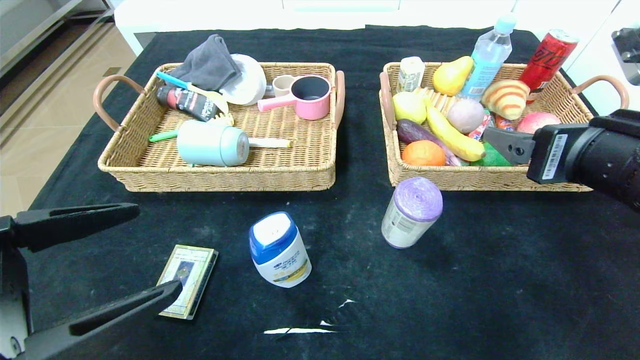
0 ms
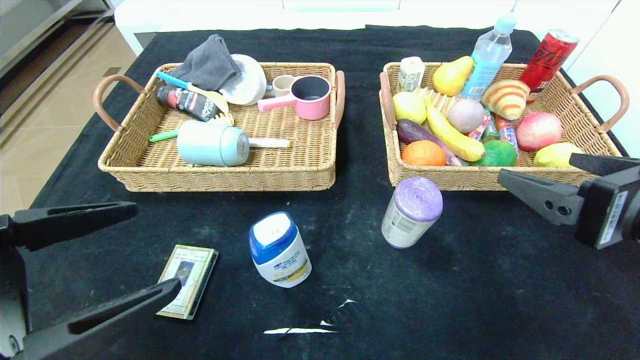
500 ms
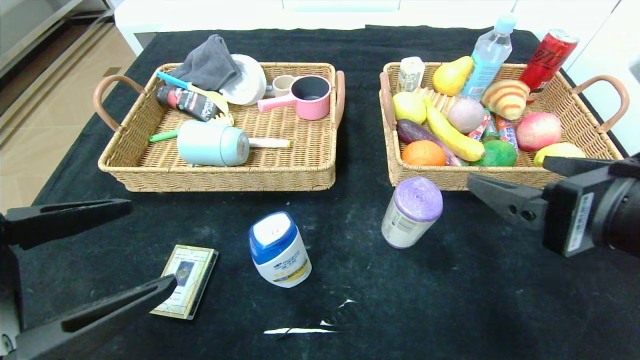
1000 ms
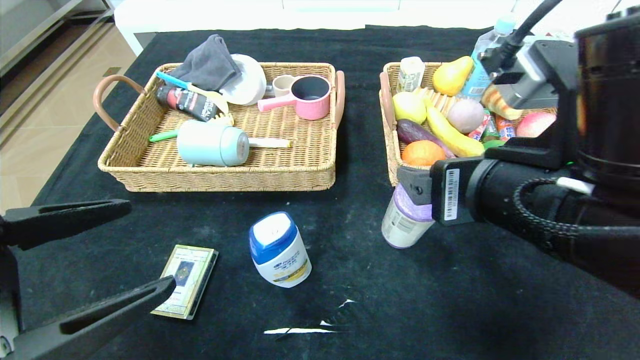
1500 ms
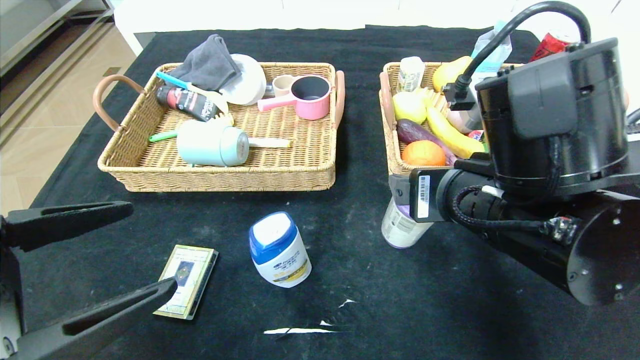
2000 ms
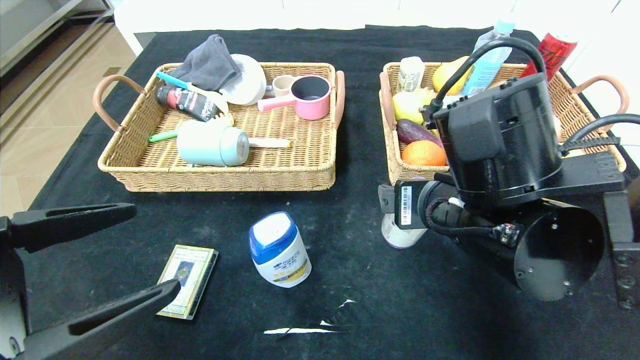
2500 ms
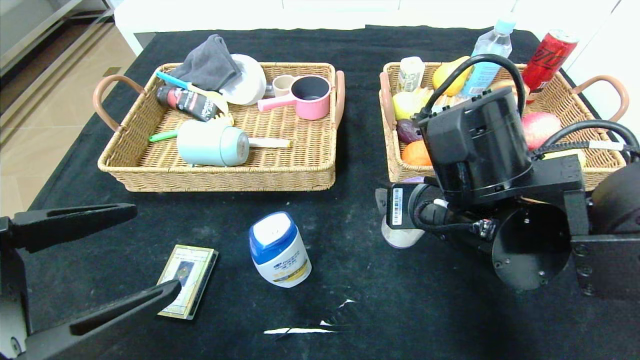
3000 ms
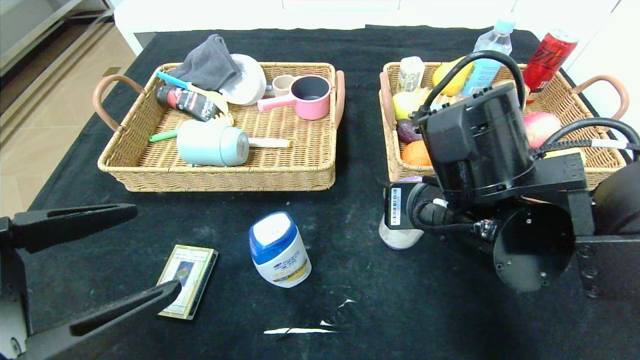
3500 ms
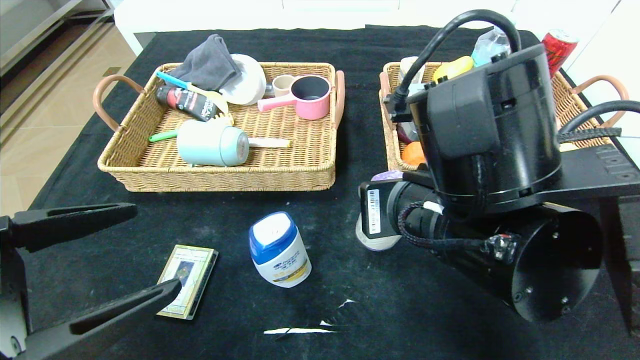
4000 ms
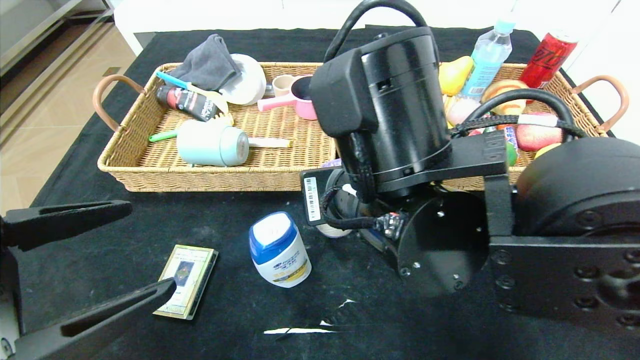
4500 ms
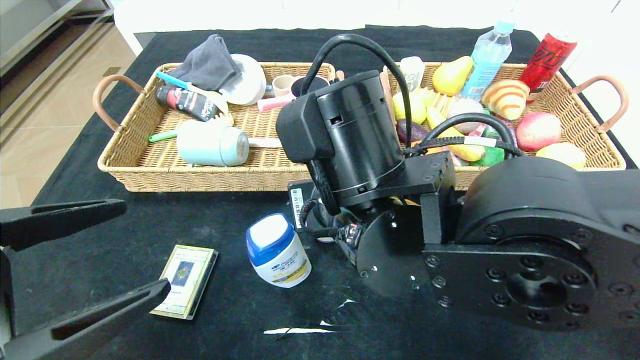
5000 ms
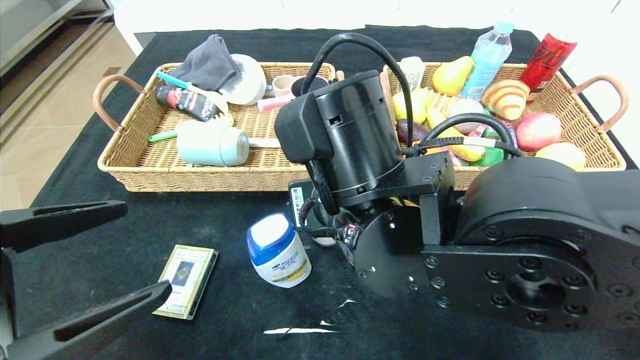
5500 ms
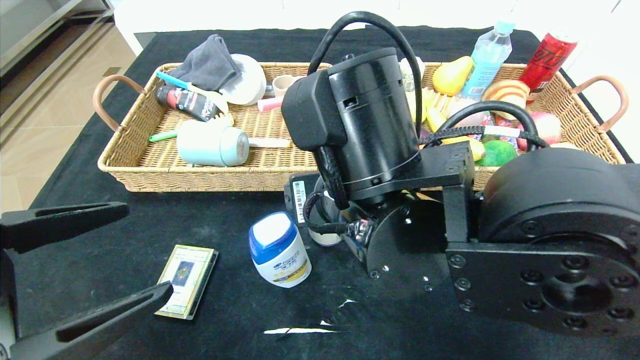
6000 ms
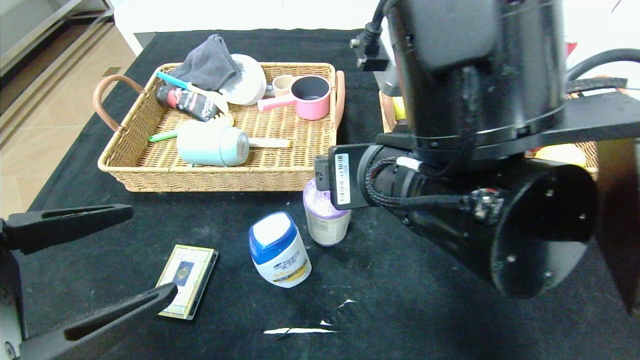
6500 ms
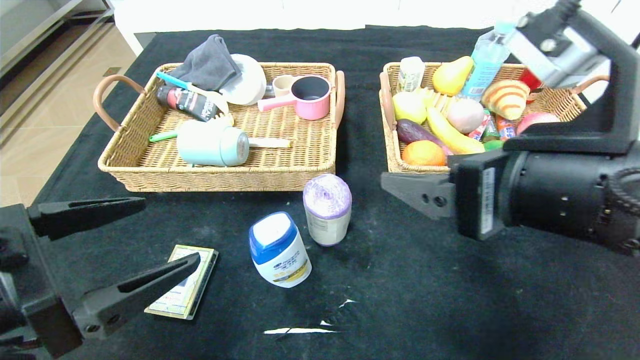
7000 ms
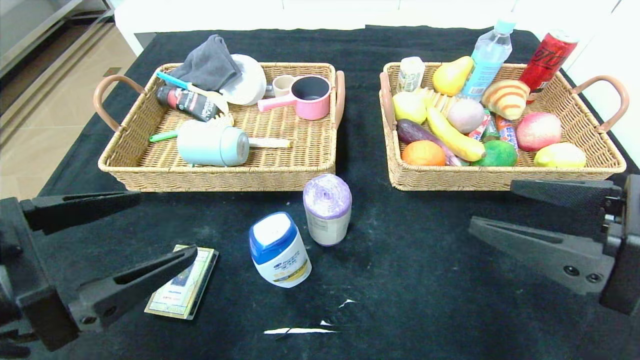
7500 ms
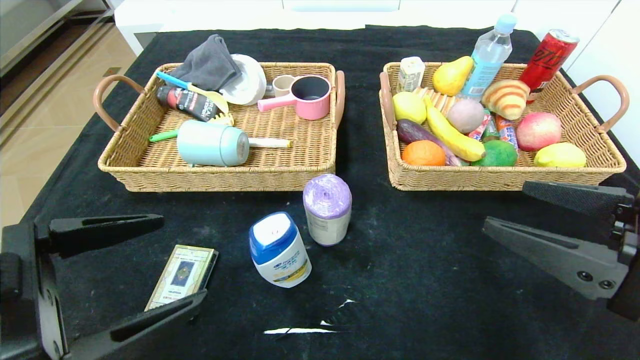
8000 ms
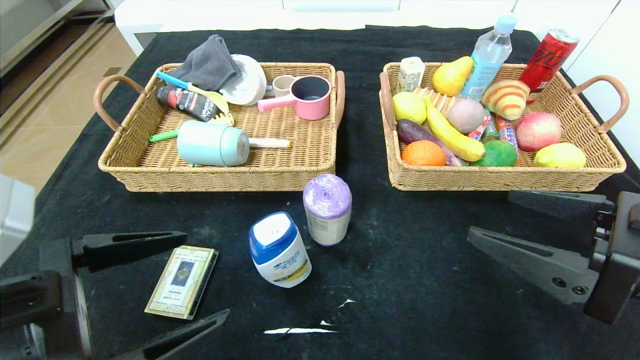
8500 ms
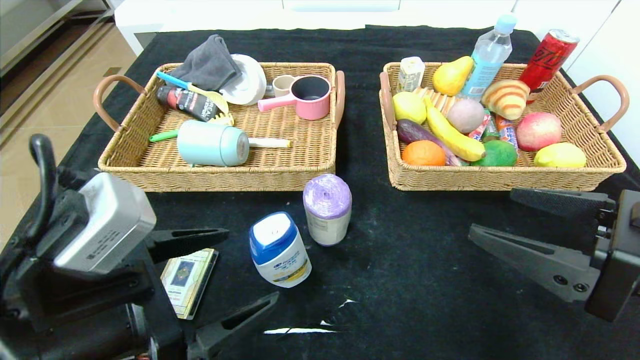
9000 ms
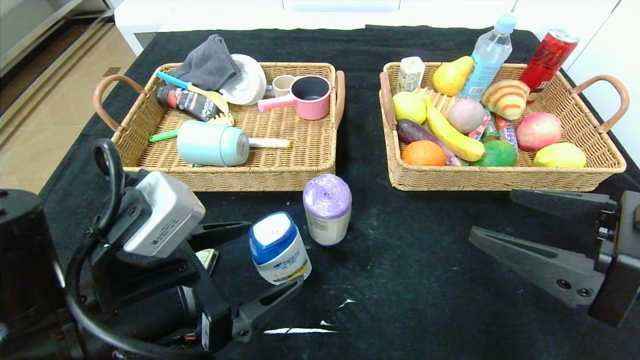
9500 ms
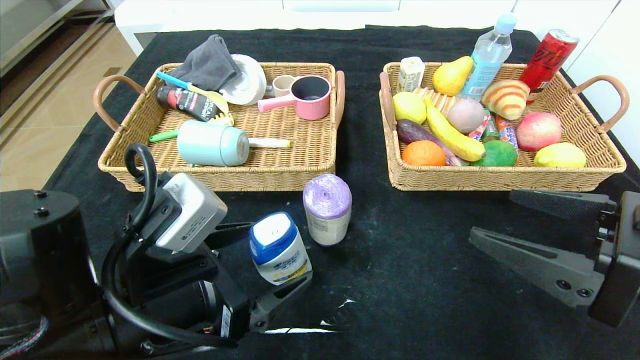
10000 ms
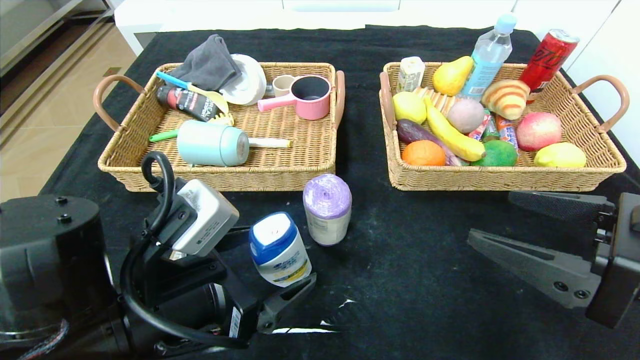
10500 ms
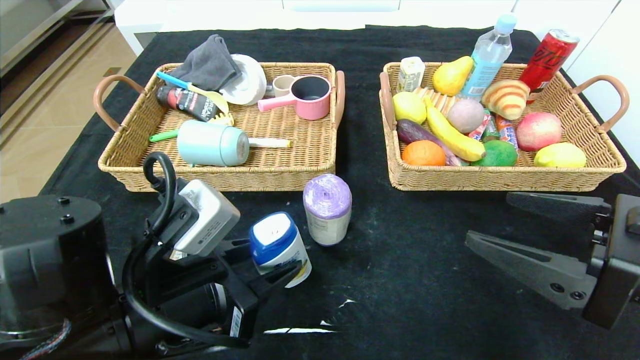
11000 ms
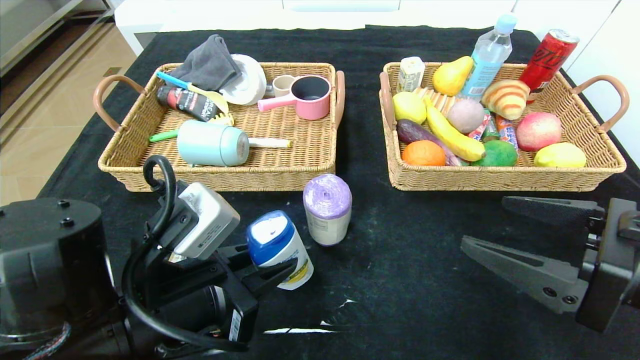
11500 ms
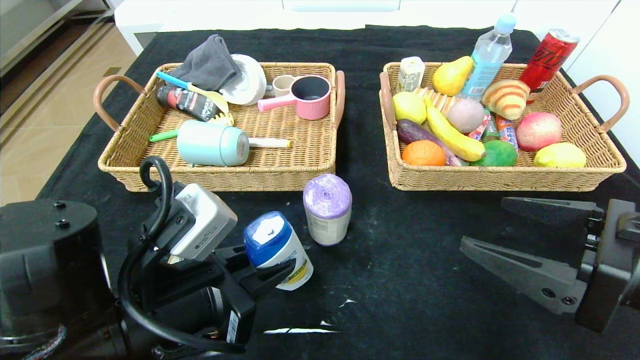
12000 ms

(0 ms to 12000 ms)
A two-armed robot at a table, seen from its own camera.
Step, 0 ms - 6500 ms: Place the purple garbage bag in the center of the table.
0 ms - 2000 ms: The right gripper moves to the left, approximately 10 cm.
2000 ms - 4000 ms: The right gripper closes.
4000 ms - 6000 ms: The right gripper heads to the left, covering some 5 cm, and opens up.
6000 ms - 8000 ms: The right gripper goes about 25 cm to the right.
8000 ms - 10000 ms: The left gripper shifts some 10 cm to the right and forward.
10000 ms - 12000 ms: The left gripper closes.

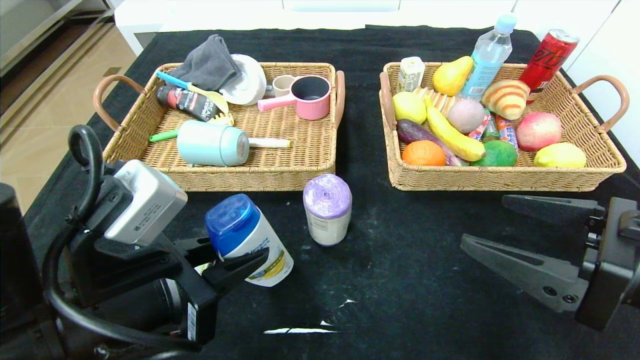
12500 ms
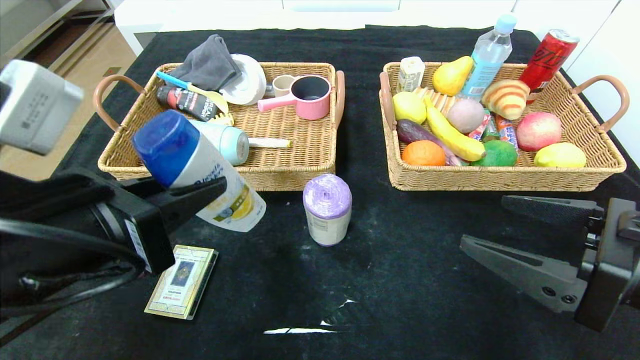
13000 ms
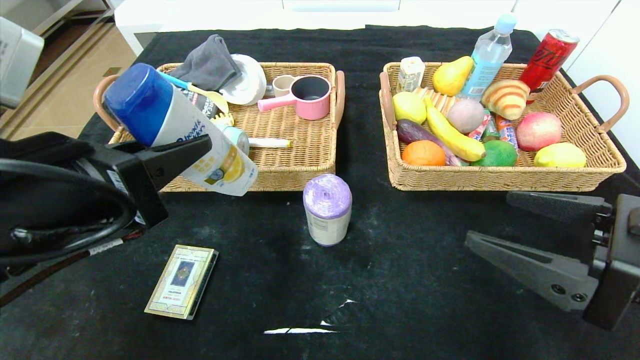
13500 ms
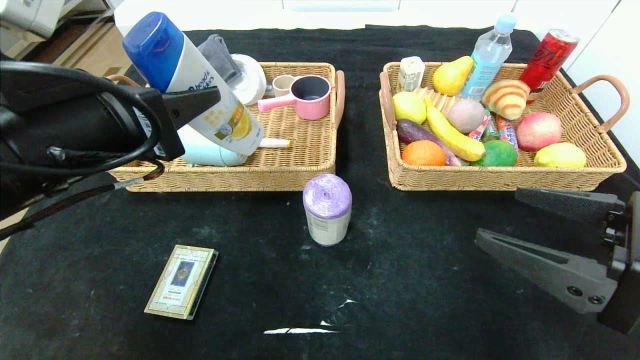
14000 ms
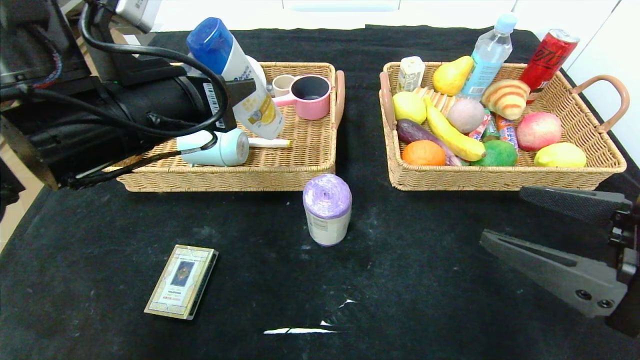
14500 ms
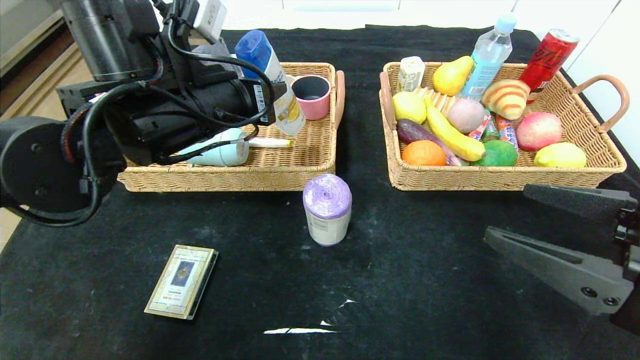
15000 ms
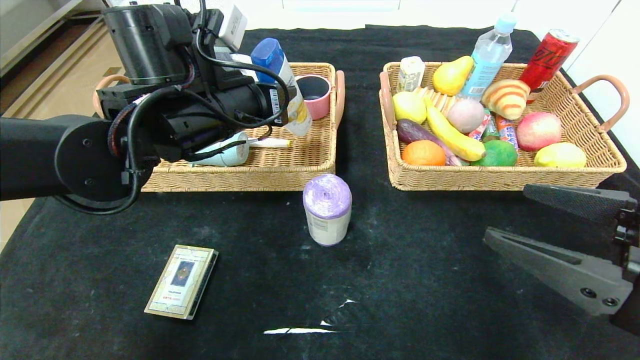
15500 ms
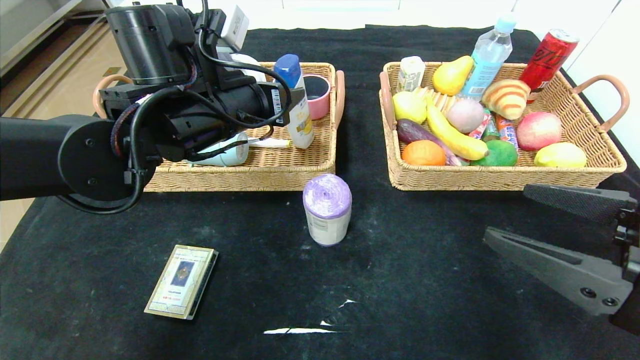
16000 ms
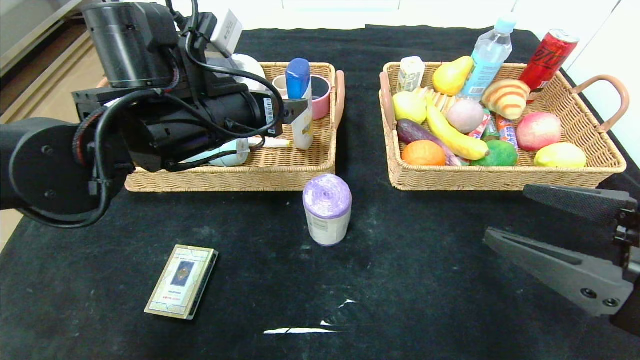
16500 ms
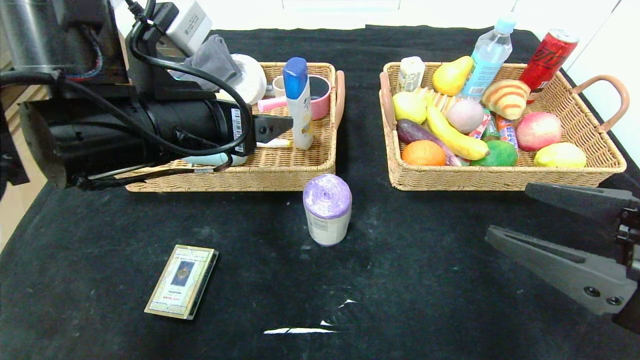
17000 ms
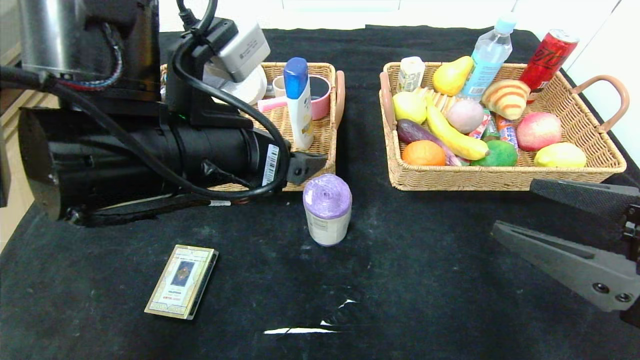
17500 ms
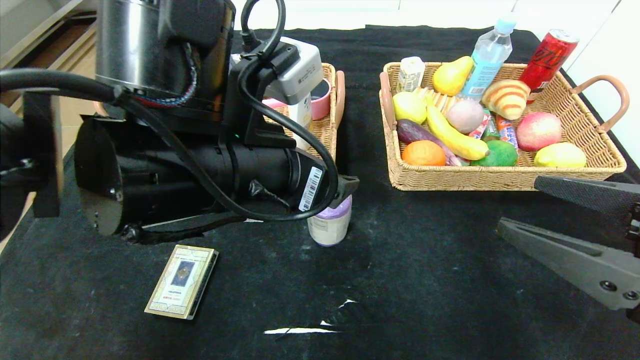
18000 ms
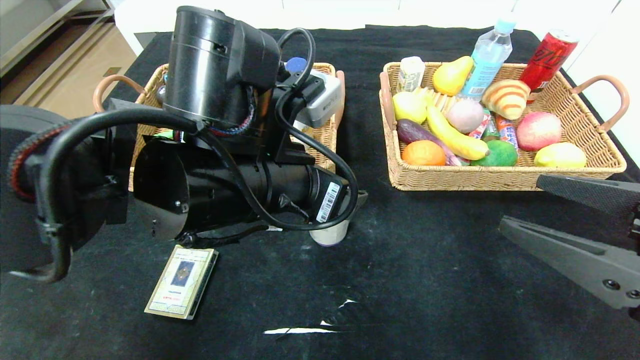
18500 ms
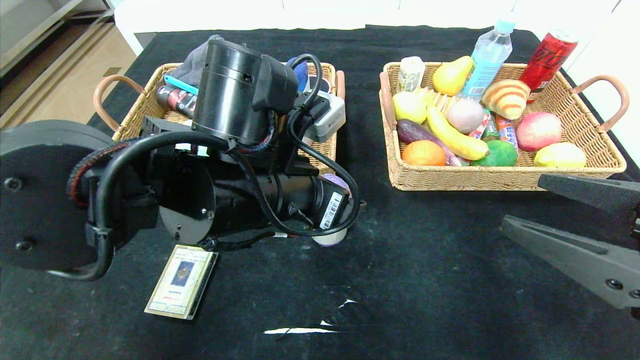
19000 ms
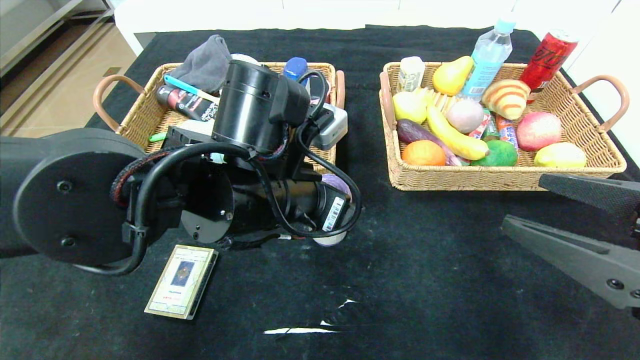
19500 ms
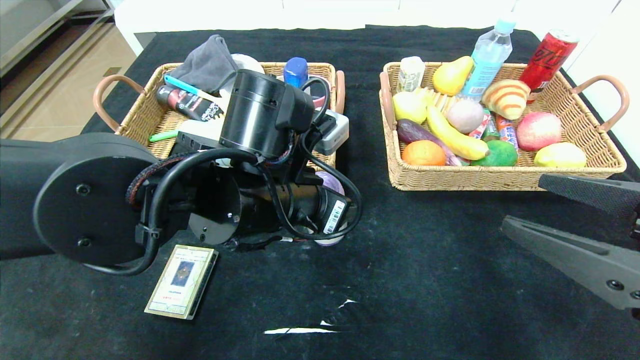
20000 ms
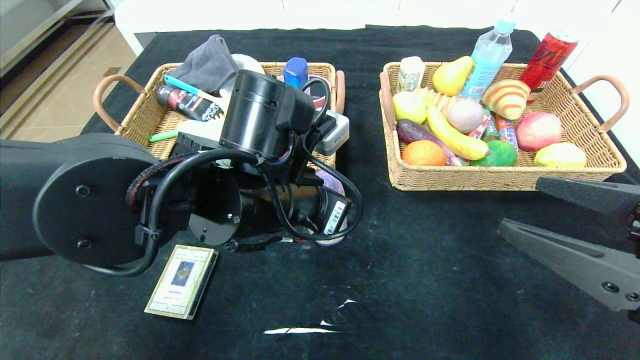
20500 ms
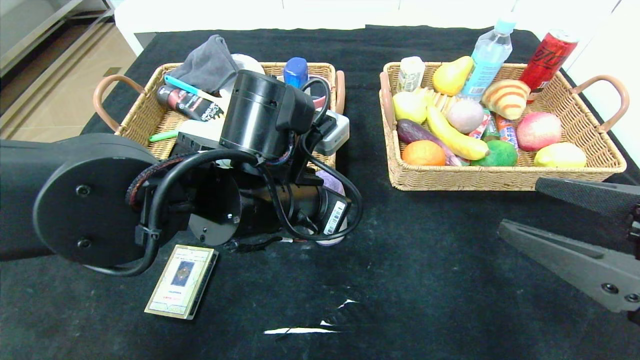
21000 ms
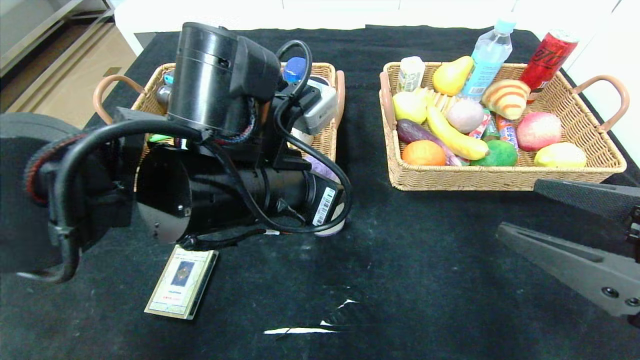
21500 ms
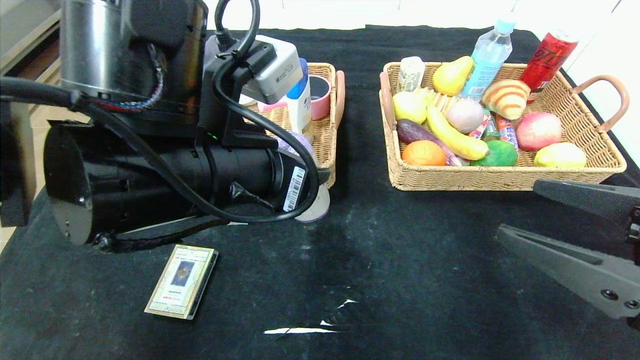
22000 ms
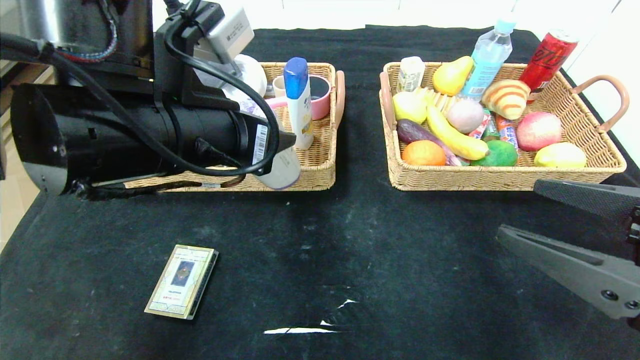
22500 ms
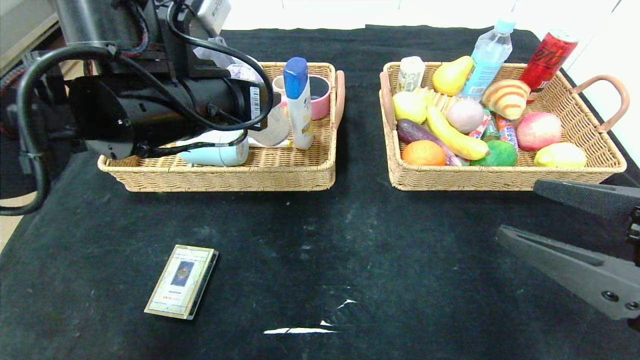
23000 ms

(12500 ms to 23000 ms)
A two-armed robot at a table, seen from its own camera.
Step, 12500 ms - 16500 ms: Grasp the shampoo and put it in the left basket.
12500 ms - 14500 ms: The left gripper travels forward and upward by some 15 cm.
14500 ms - 16500 ms: The left gripper moves roughly 5 cm, and opens its fingers.
16500 ms - 19000 ms: The left gripper travels to the right and backward by some 10 cm.
19000 ms - 21000 ms: The left gripper closes its fingers.
21000 ms - 23000 ms: The left gripper travels to the left and upward by about 10 cm.
